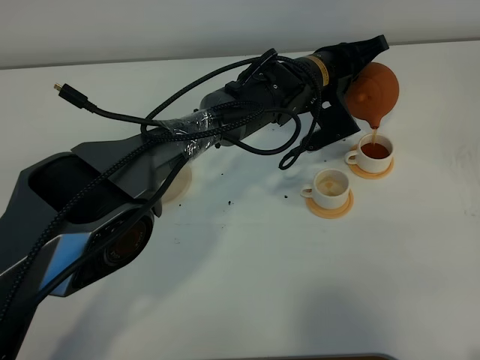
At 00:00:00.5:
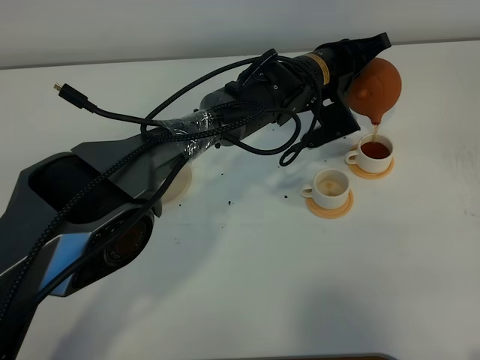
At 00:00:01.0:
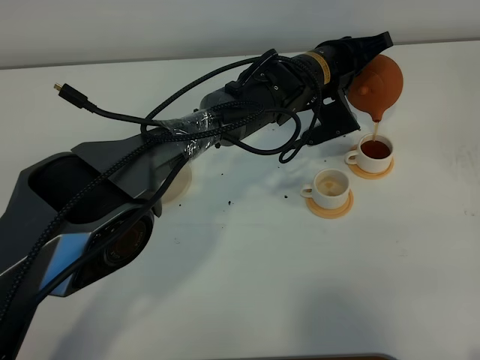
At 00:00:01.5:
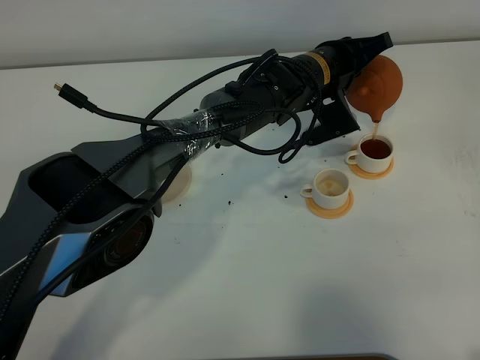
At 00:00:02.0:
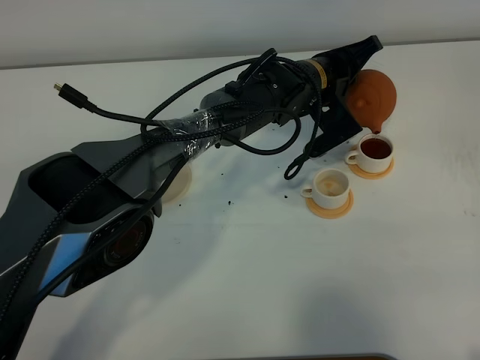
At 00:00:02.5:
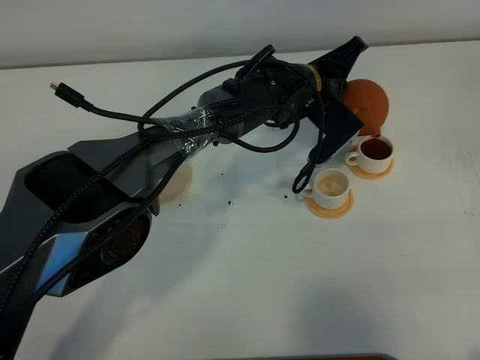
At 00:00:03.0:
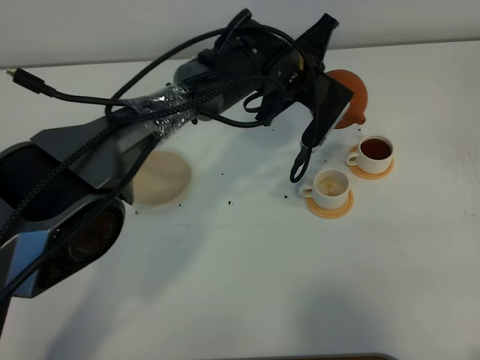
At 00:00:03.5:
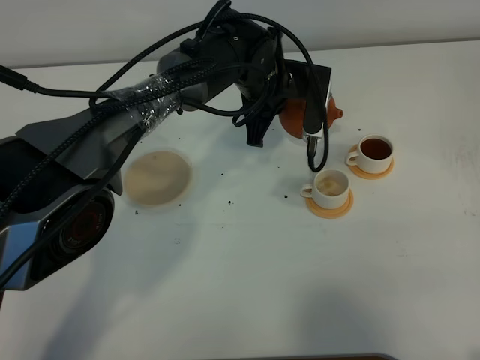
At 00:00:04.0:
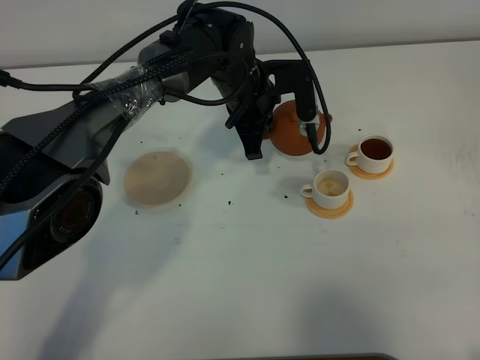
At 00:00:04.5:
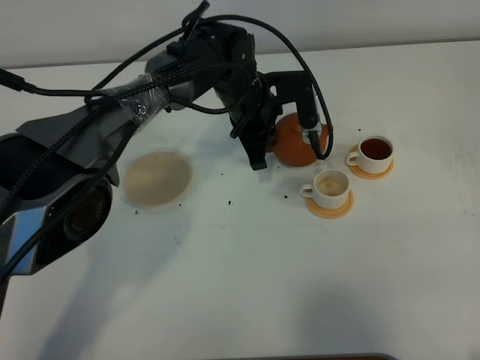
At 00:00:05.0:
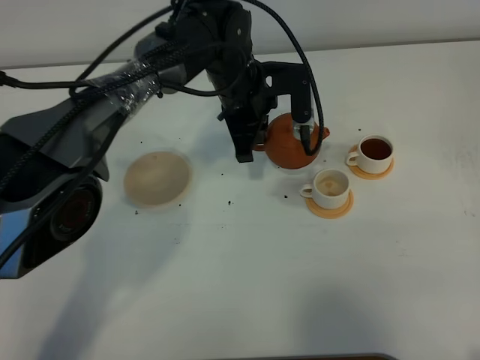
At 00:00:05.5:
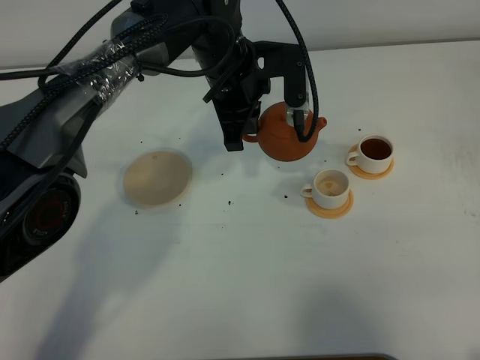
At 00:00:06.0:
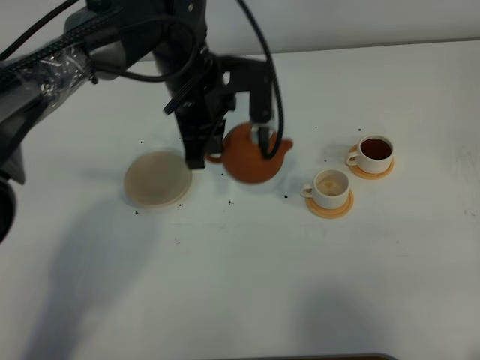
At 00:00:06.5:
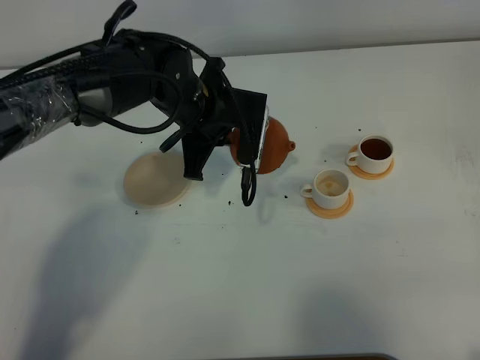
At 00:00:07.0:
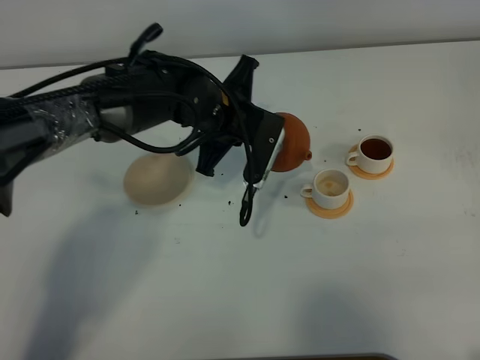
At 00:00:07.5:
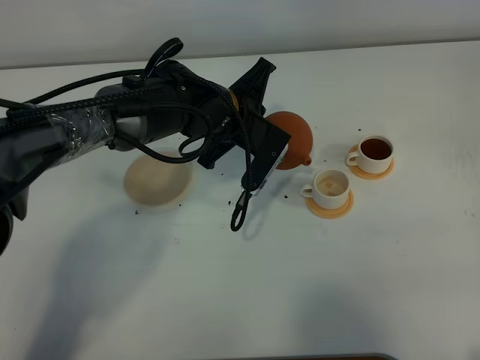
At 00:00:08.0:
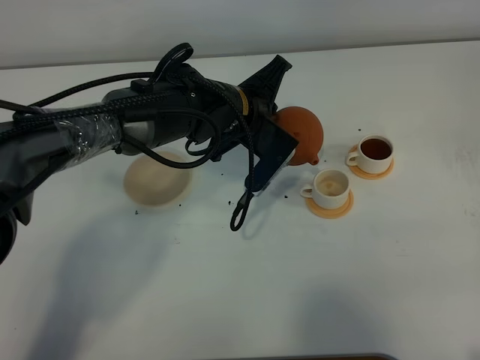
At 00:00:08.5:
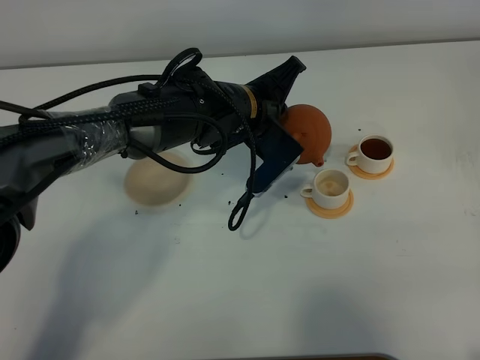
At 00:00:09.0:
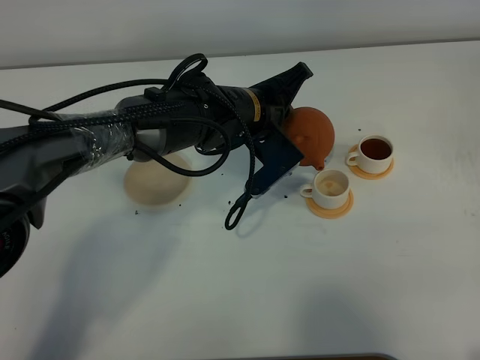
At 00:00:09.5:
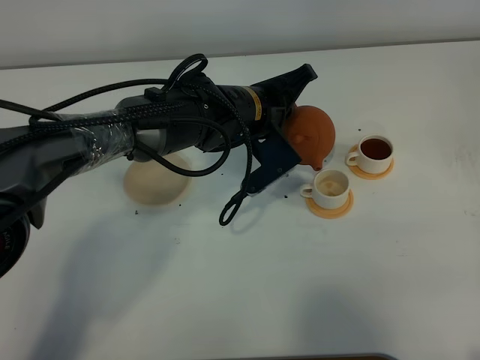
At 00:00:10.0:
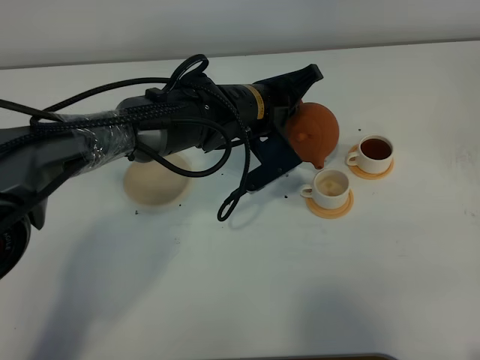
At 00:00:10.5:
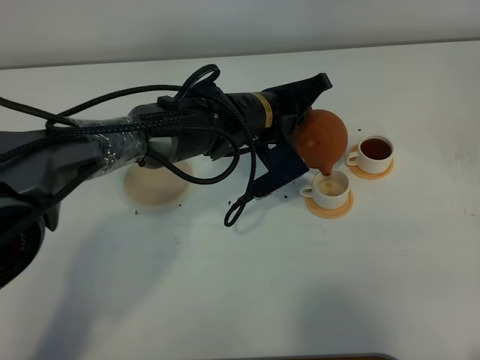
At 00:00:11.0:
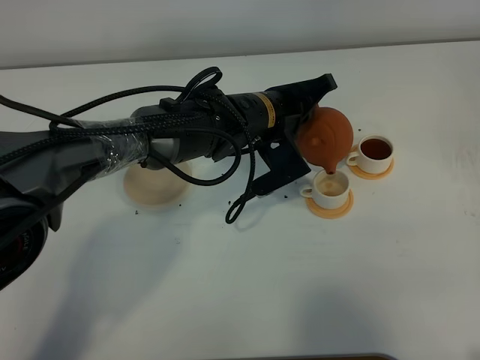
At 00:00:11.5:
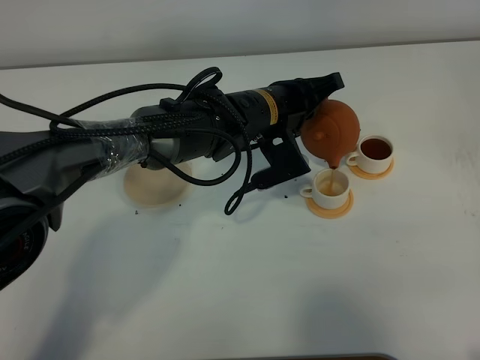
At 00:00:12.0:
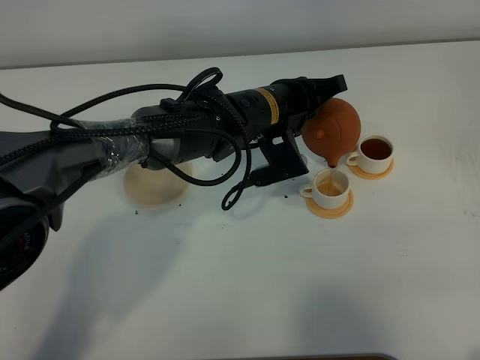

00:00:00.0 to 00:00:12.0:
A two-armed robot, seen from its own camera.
Task of the whole recording: grasp the brown teapot and pour the tea into the two white teacups one by one, put the brown teapot back in its original place.
00:00:00.0 to 00:00:02.0: The grippers move only a little.
00:00:02.0 to 00:00:04.0: The left gripper moves to the left, approximately 10 cm.
00:00:04.0 to 00:00:06.0: The left gripper shifts approximately 10 cm to the left, backward and upward.
00:00:06.0 to 00:00:08.0: The left gripper moves some 5 cm.
00:00:10.0 to 00:00:12.0: The grippers move only a little.

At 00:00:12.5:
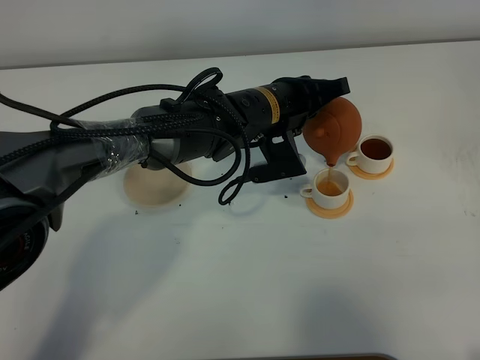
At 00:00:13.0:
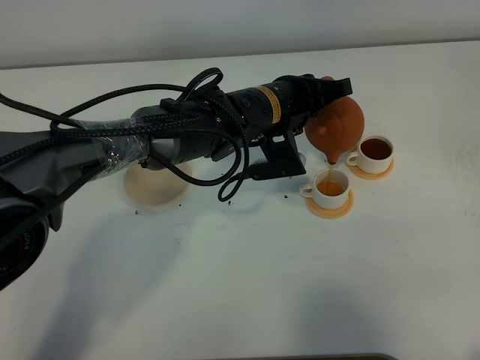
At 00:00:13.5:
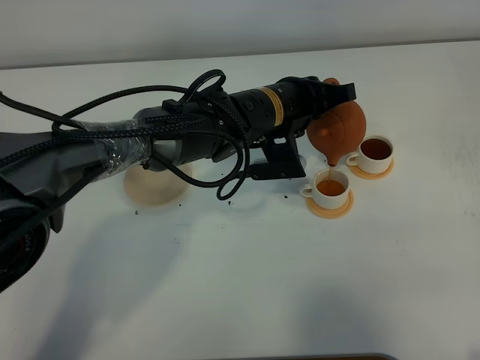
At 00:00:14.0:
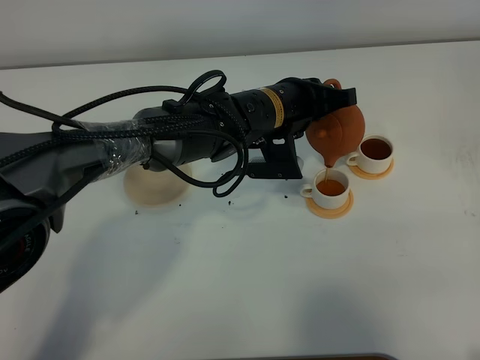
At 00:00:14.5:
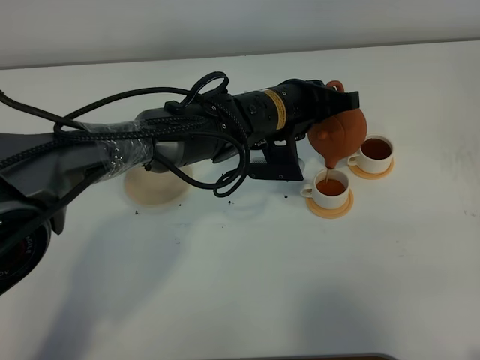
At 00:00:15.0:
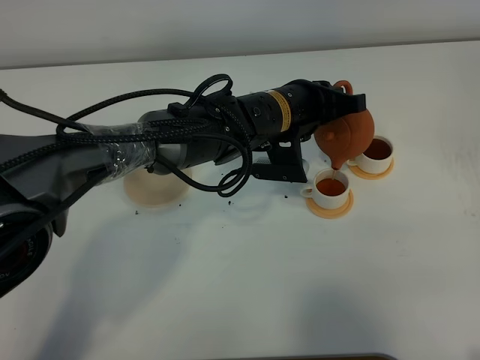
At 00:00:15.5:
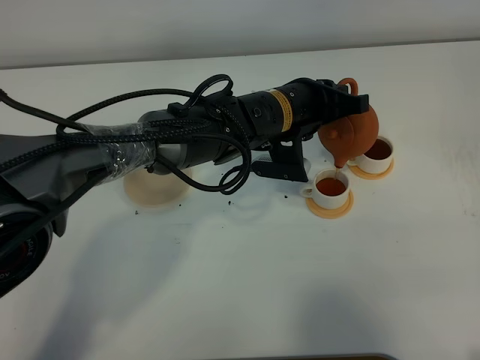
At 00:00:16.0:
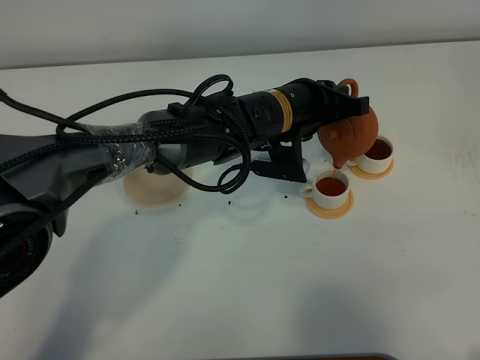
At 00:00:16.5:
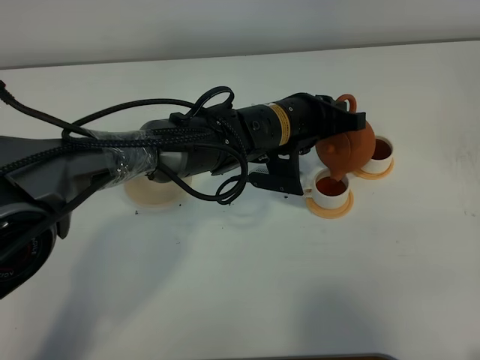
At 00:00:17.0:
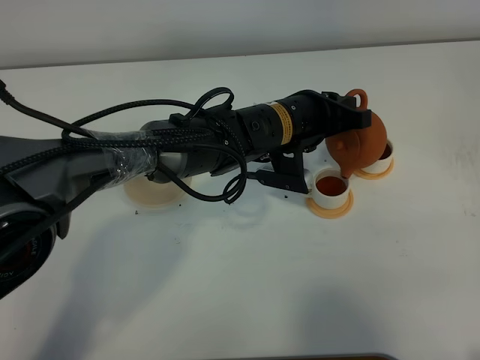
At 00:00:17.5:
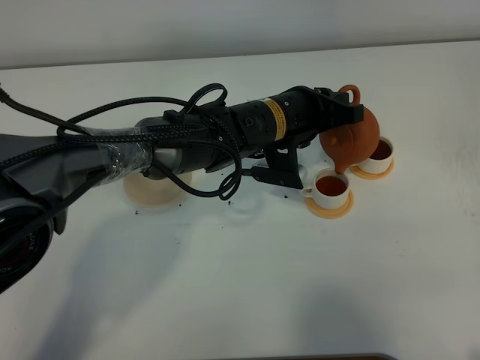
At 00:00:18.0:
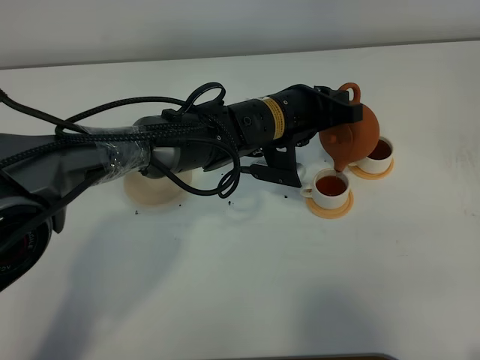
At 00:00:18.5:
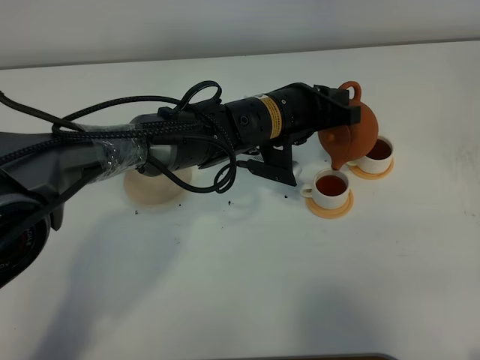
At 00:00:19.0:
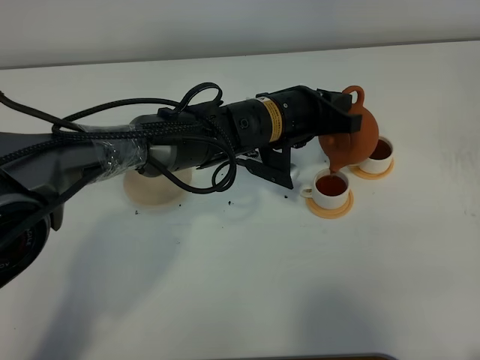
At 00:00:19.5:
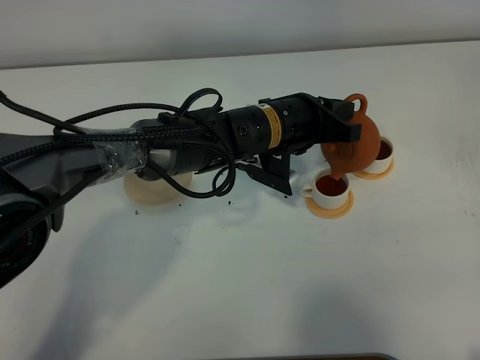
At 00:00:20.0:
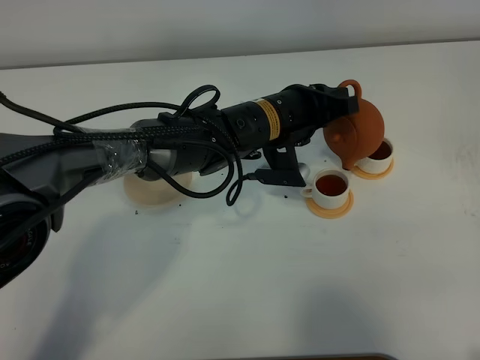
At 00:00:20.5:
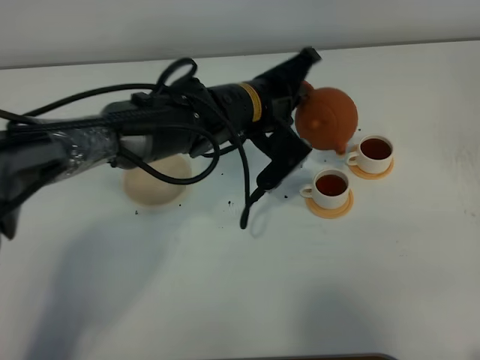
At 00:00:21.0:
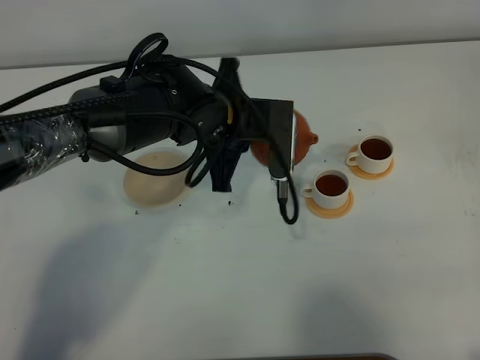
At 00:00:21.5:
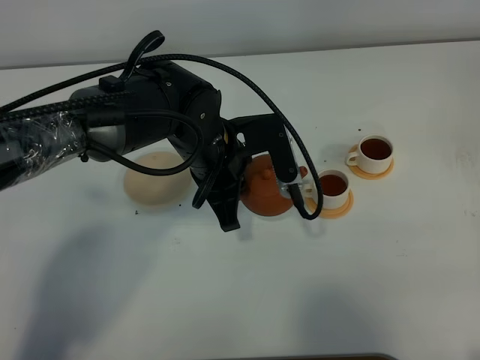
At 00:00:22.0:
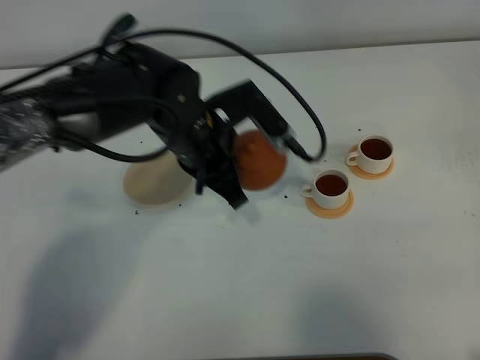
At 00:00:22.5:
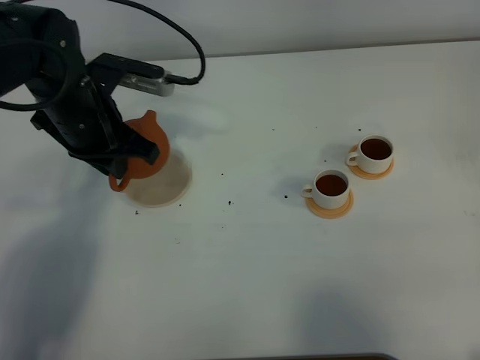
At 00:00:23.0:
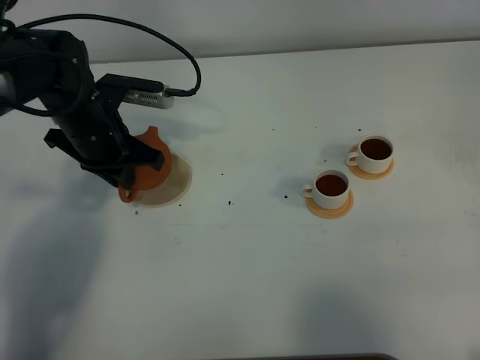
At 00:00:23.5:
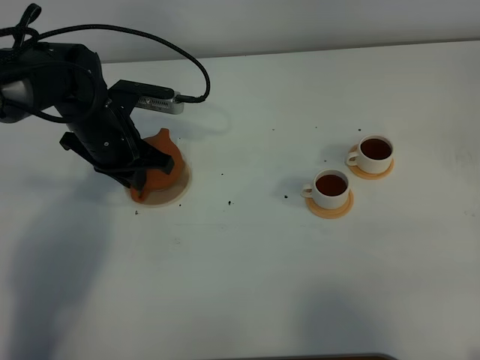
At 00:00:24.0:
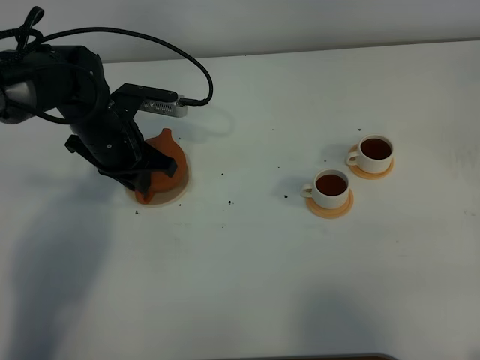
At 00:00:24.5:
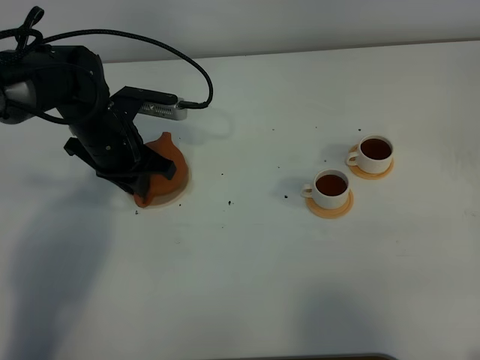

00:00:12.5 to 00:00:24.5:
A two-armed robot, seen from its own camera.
Task of the whole recording: grasp the brown teapot and pour the tea into the two white teacups one by one, put the brown teapot back in its original place.
Step, 00:00:12.5 to 00:00:20.0: Pour tea into the teacup with the left gripper.
00:00:12.5 to 00:00:16.5: The grippers make only small movements.
00:00:16.5 to 00:00:18.5: The grippers stay close to where they were, moving slightly.
00:00:20.5 to 00:00:22.5: The left gripper is displaced to the left by roughly 20 cm.
00:00:22.5 to 00:00:24.5: The left gripper heads downward, covering about 5 cm.

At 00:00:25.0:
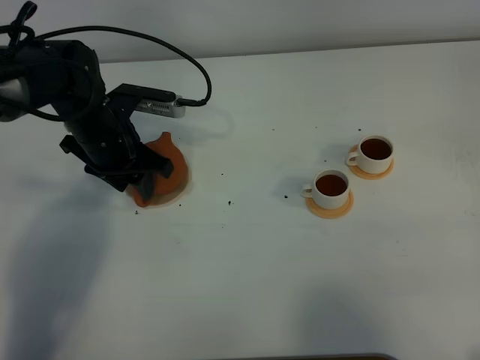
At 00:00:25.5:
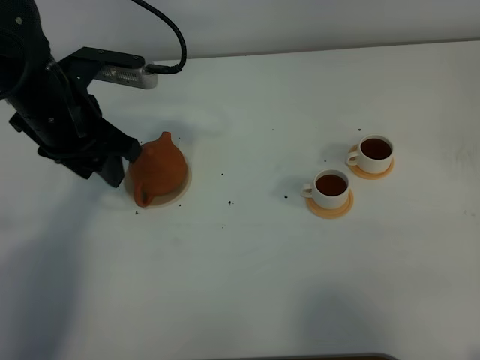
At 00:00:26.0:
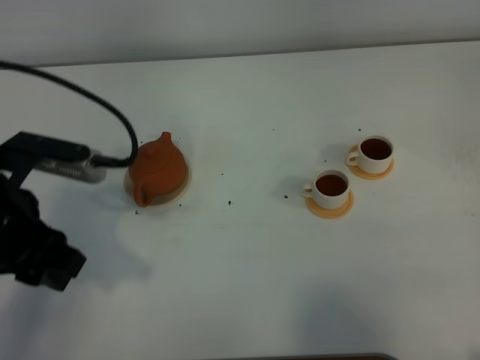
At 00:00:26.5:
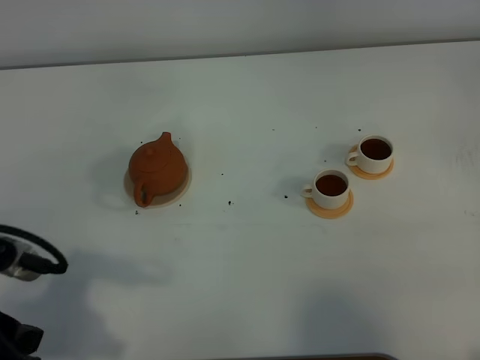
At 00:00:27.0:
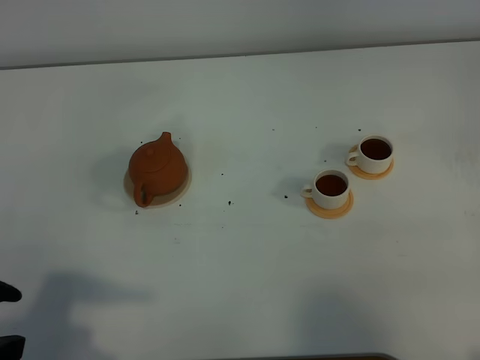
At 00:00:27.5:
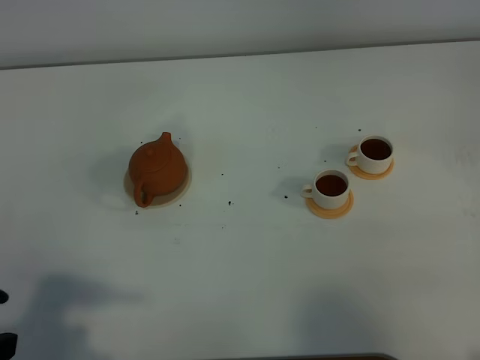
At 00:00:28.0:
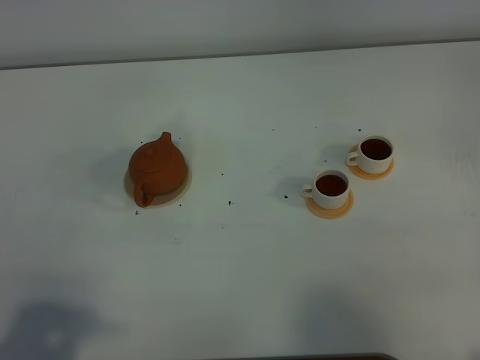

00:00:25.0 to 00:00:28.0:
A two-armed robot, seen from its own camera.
Task of the whole recording: grasp the brown teapot and pour the tea into the two white teacups one by one, put the brown teapot back in its original place.
00:00:25.0 to 00:00:26.5: The left gripper moves backward, some 30 cm.
00:00:26.5 to 00:00:28.0: The left gripper heads backward, covering roughly 5 cm.
